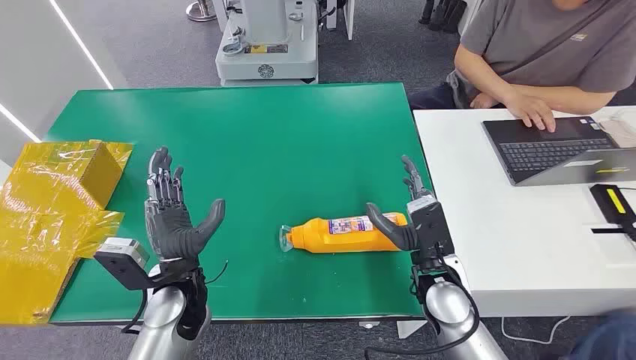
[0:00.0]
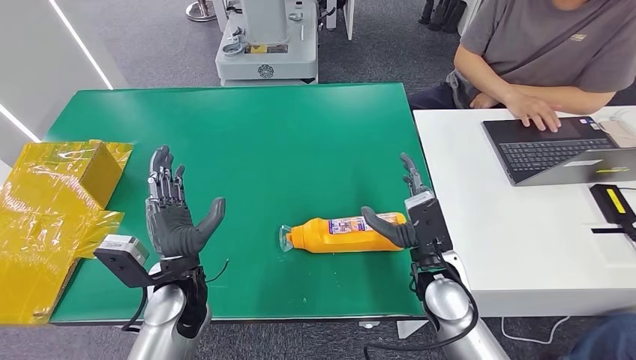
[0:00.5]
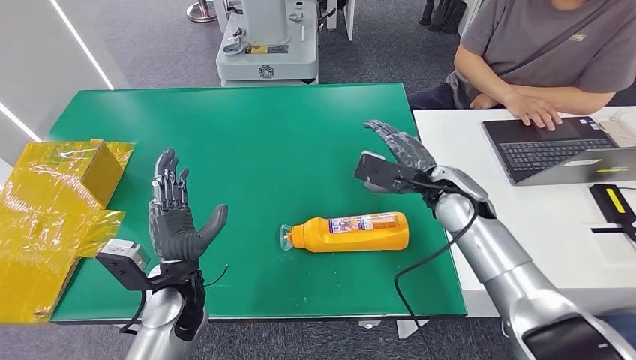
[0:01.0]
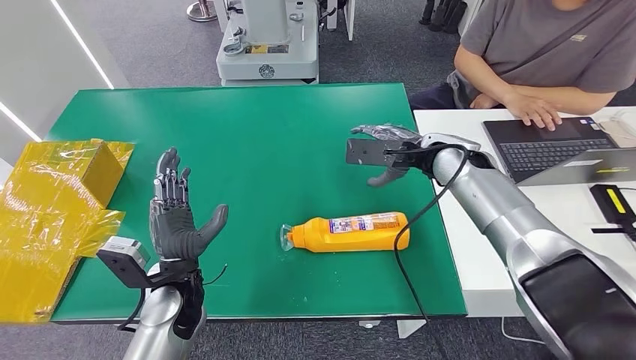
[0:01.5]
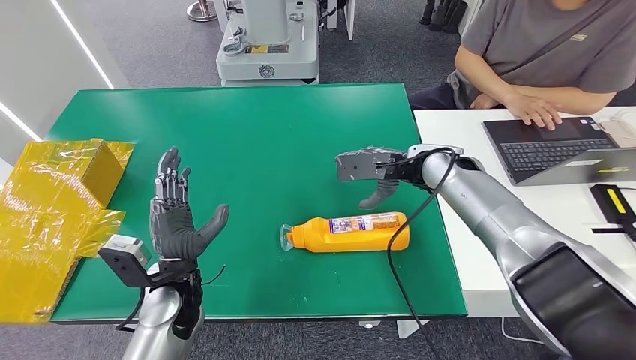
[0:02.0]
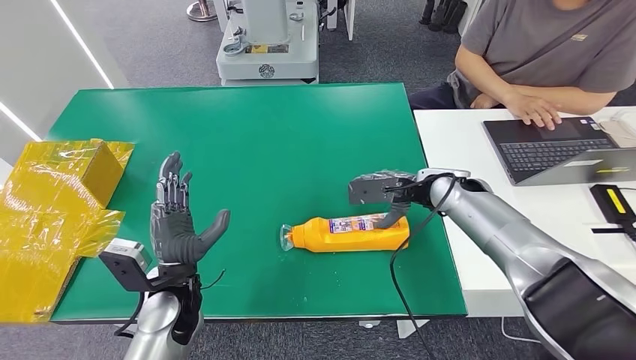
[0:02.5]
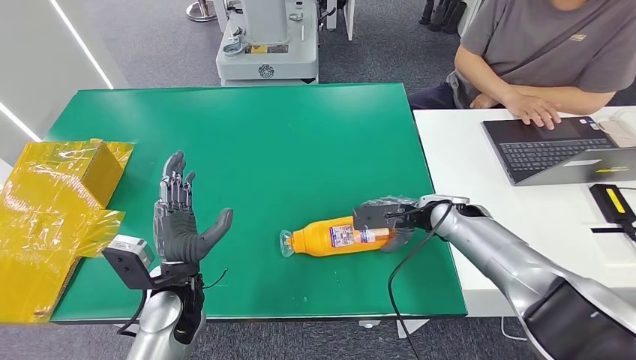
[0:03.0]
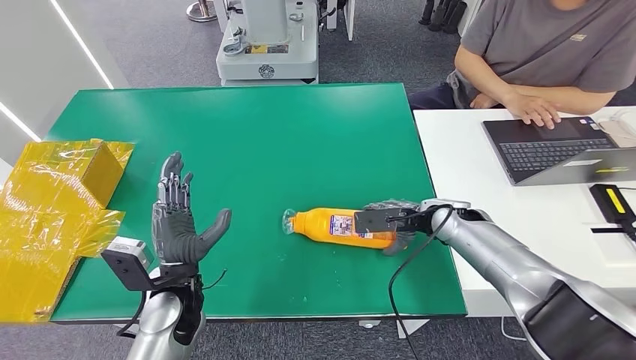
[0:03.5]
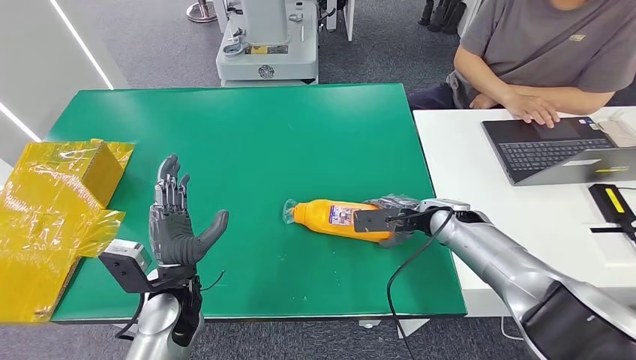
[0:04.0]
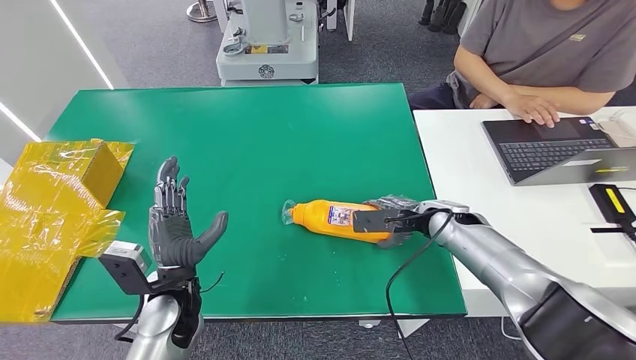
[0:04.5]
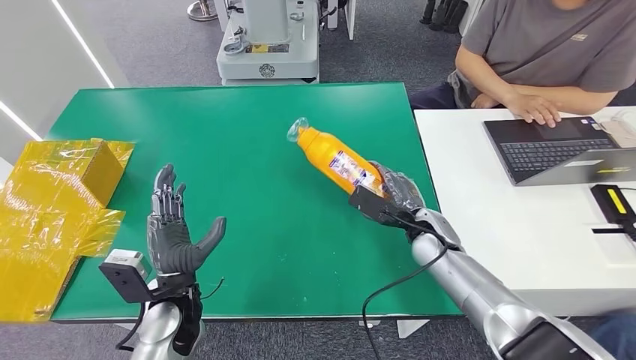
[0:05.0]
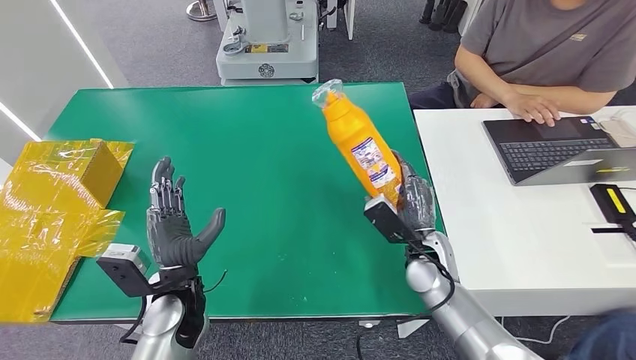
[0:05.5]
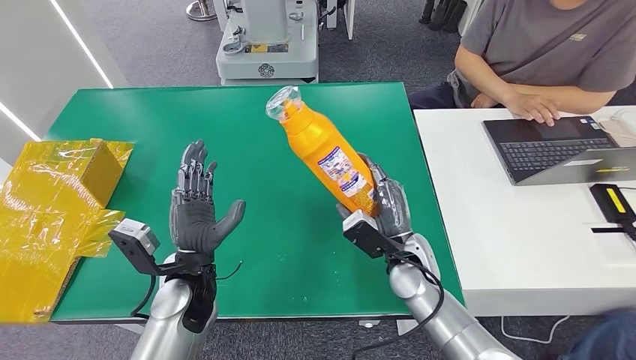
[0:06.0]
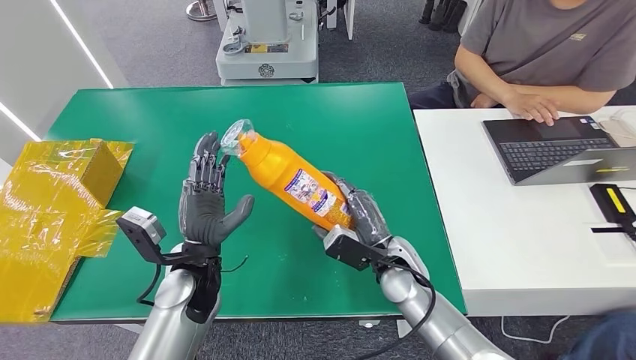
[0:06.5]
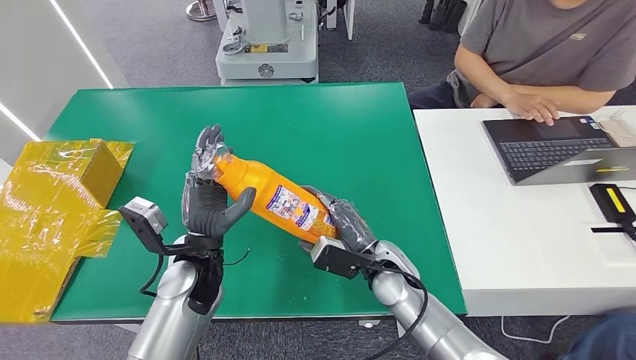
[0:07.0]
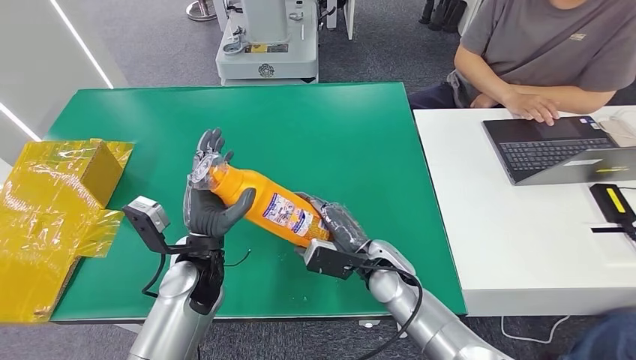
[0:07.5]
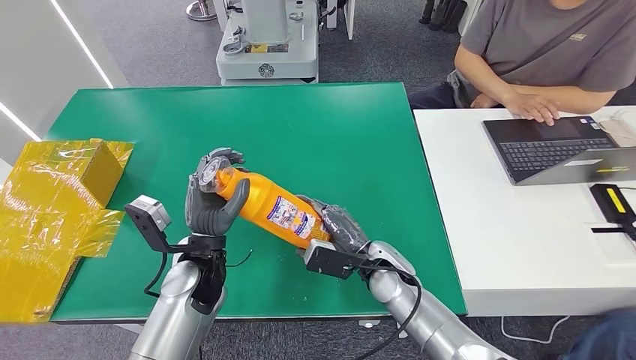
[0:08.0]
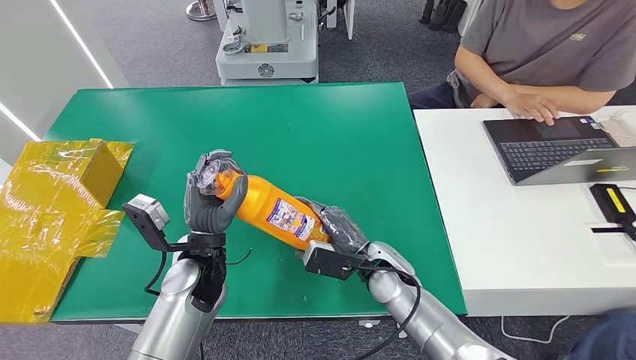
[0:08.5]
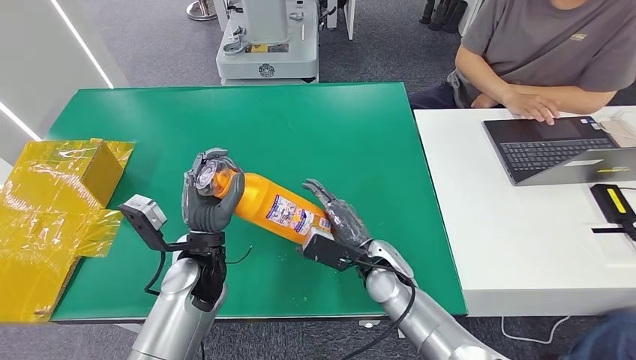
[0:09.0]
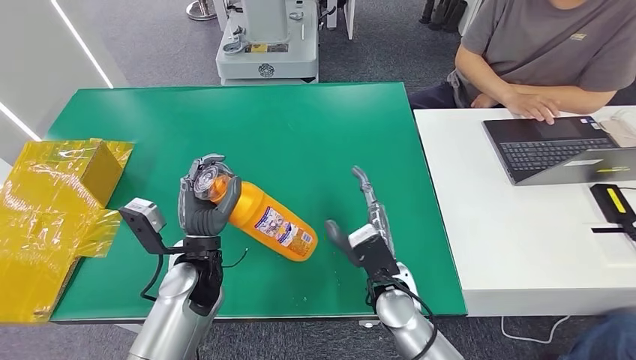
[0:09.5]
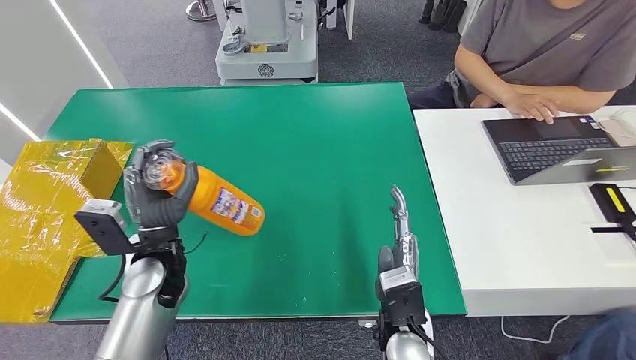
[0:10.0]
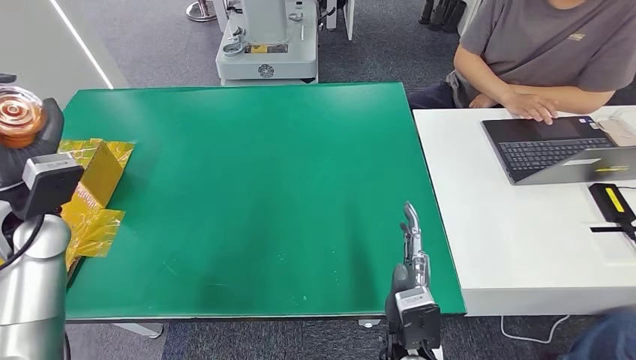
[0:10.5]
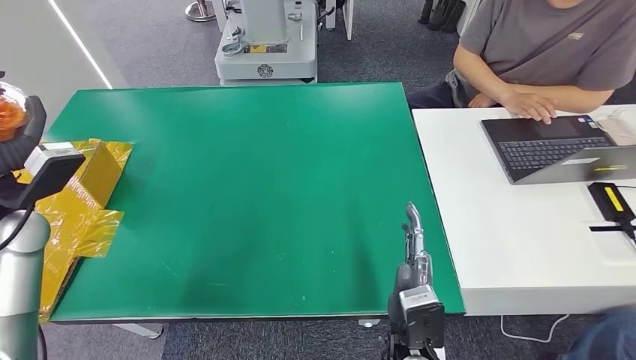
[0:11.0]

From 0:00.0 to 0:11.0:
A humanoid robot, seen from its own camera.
Step, from 0:00.0 to 0:06.0: Pick up the bottle from the table.
From 0:02.0 to 0:03.5: The right hand travels downward by approximately 10 cm.
From 0:03.5 to 0:05.5: The right hand travels backward and to the left by about 10 cm.
From 0:05.5 to 0:07.5: The right hand travels to the left by roughly 10 cm. Meanwhile the left hand changes place by about 5 cm.
From 0:07.5 to 0:09.0: The hands make only small movements.

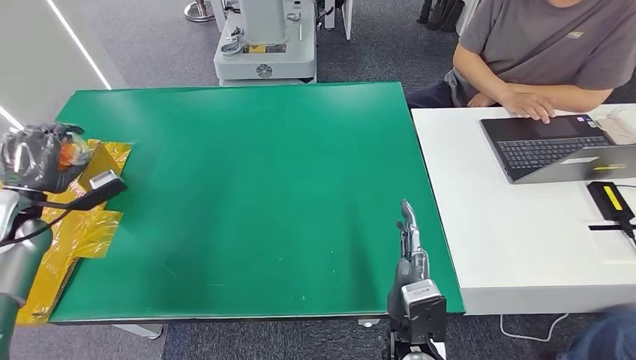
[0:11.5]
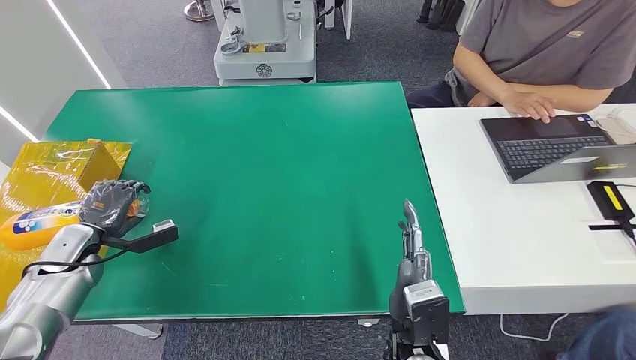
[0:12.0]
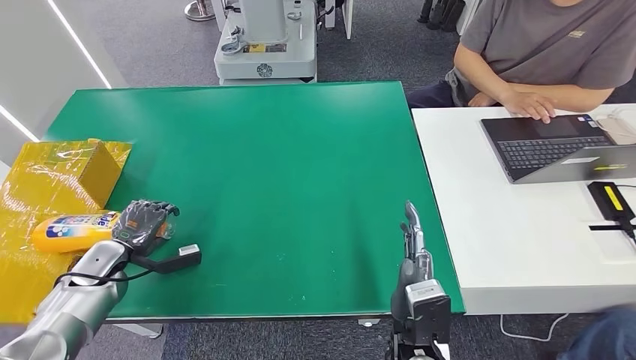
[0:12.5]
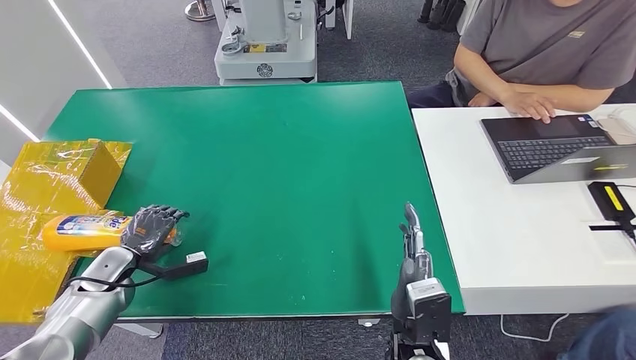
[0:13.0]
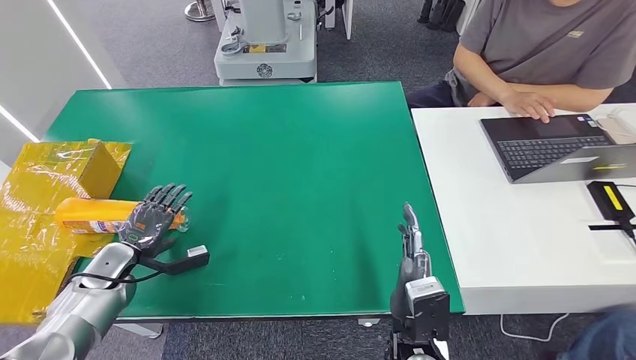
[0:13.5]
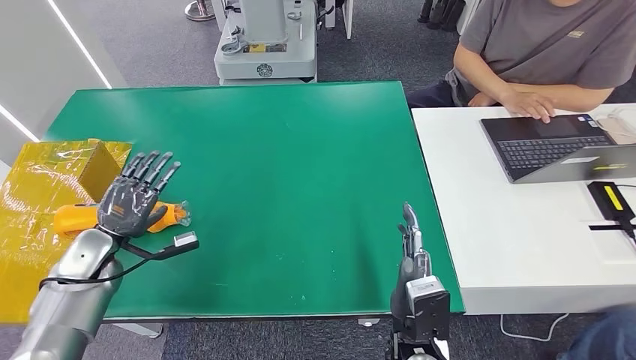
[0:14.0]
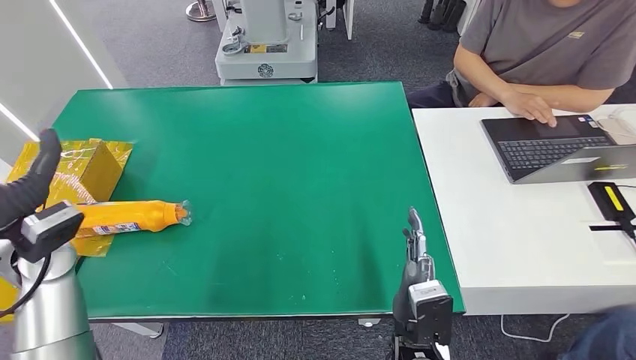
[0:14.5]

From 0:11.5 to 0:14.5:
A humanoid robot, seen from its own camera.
Step, from 0:11.5 to 0:14.5: Turn the bottle to the front side.
From 0:11.5 to 0:13.0: The left hand heads downward and to the right, covering some 15 cm.
From 0:13.0 to 0:14.5: The left hand shifts some 20 cm upward.
